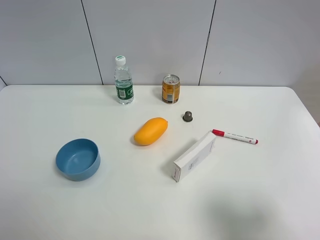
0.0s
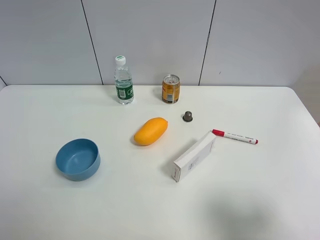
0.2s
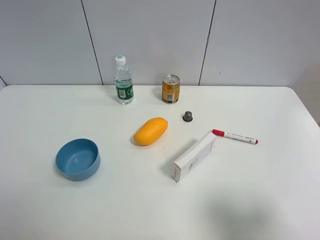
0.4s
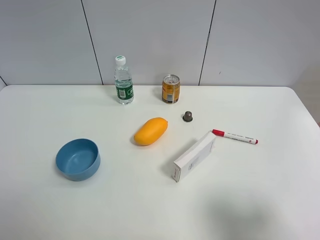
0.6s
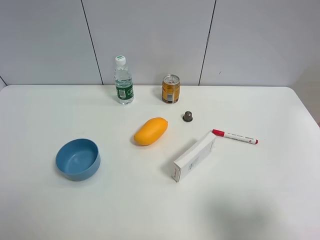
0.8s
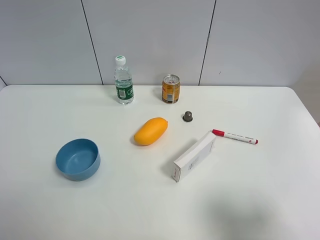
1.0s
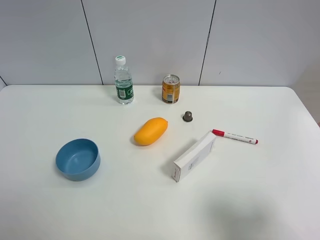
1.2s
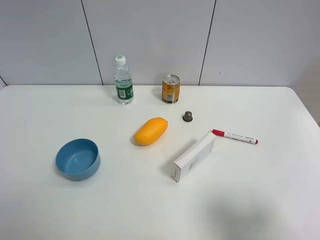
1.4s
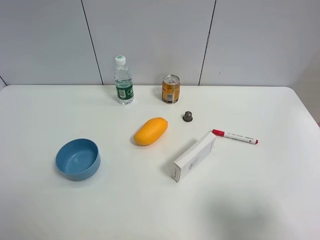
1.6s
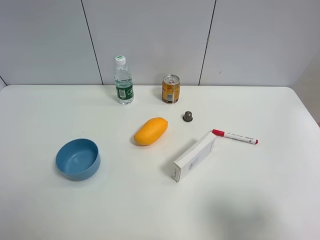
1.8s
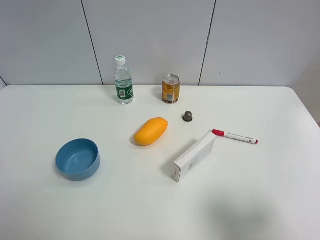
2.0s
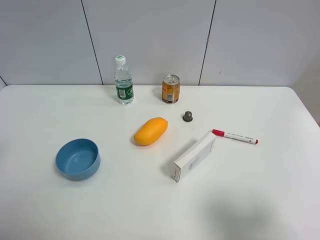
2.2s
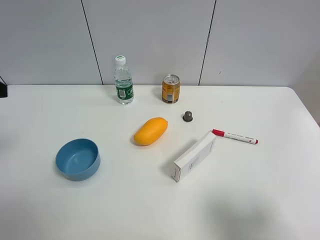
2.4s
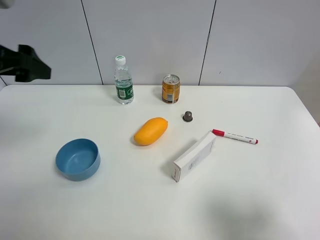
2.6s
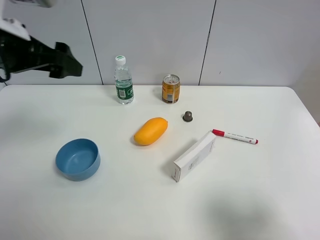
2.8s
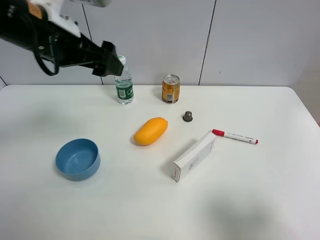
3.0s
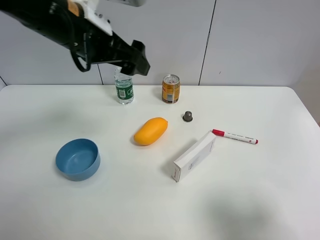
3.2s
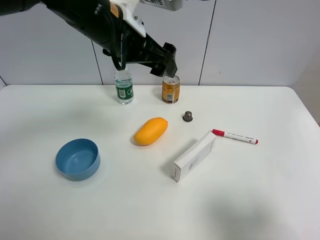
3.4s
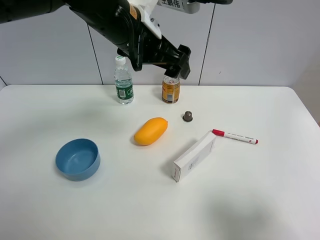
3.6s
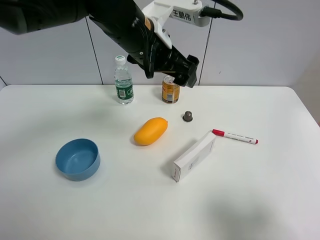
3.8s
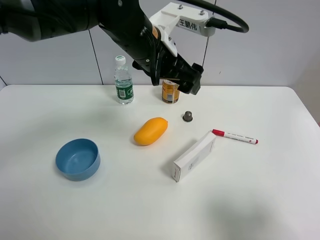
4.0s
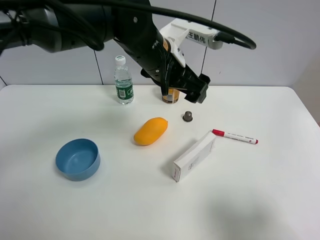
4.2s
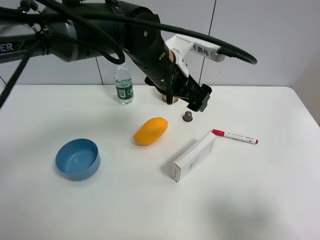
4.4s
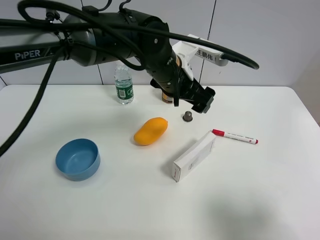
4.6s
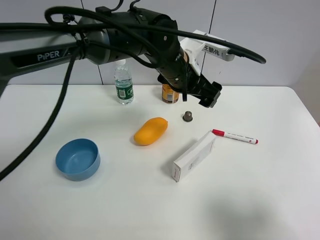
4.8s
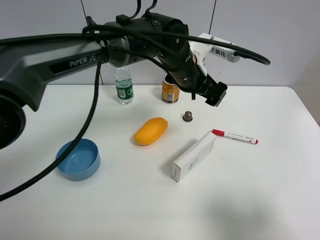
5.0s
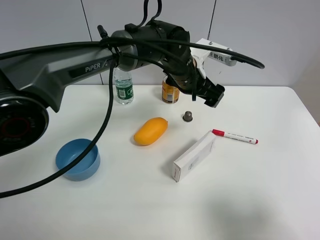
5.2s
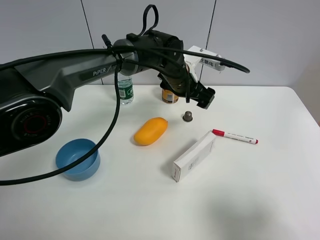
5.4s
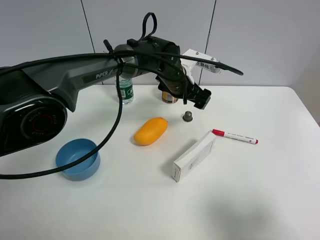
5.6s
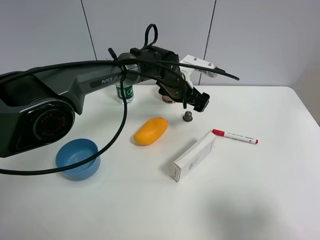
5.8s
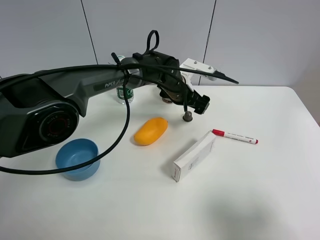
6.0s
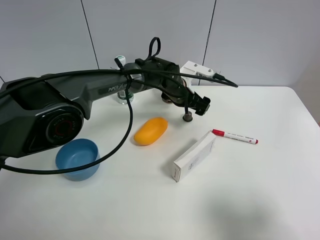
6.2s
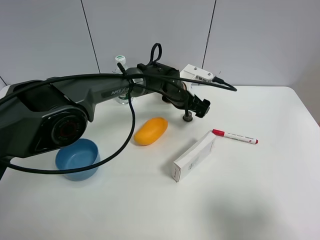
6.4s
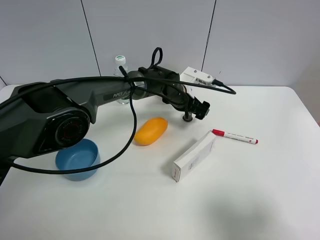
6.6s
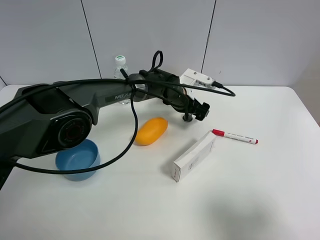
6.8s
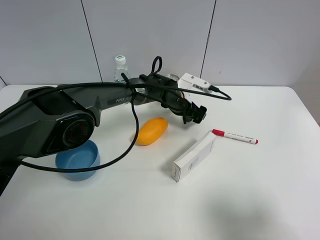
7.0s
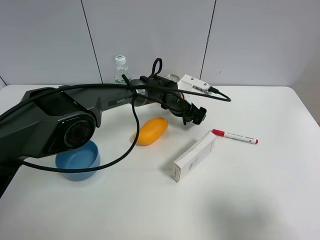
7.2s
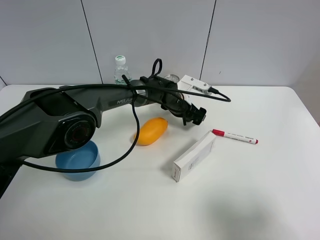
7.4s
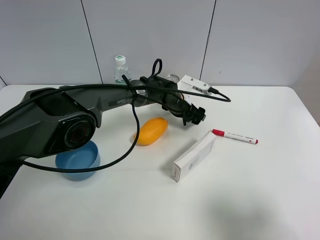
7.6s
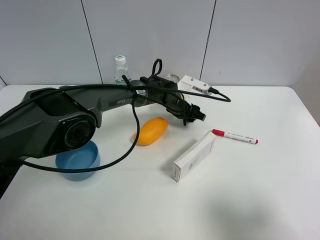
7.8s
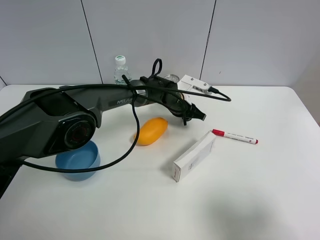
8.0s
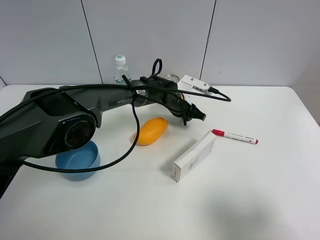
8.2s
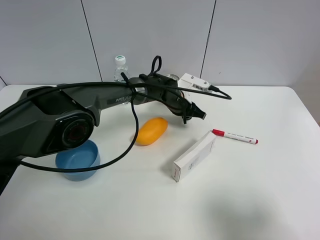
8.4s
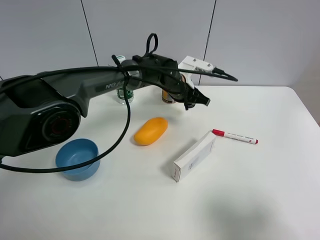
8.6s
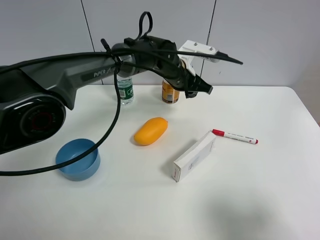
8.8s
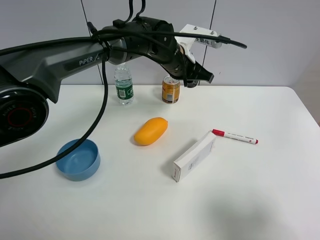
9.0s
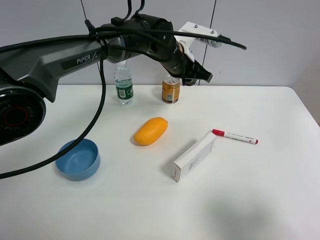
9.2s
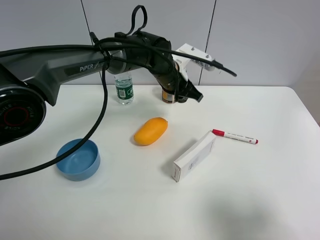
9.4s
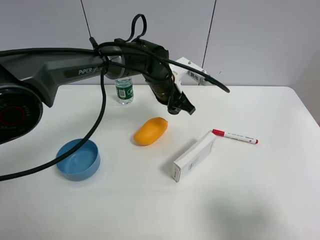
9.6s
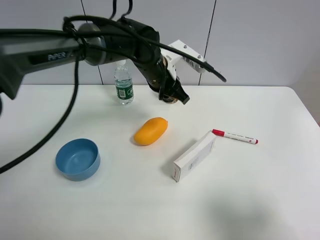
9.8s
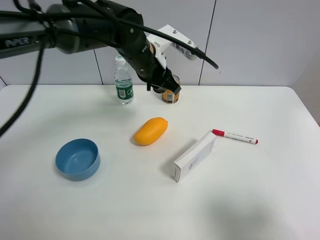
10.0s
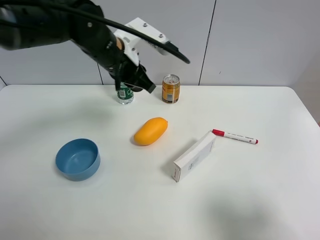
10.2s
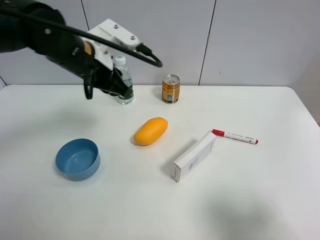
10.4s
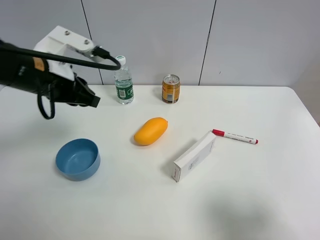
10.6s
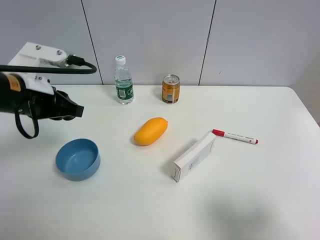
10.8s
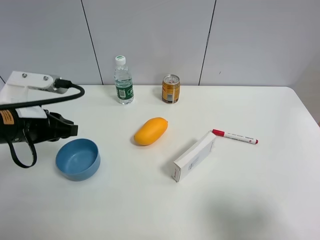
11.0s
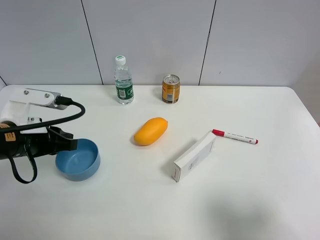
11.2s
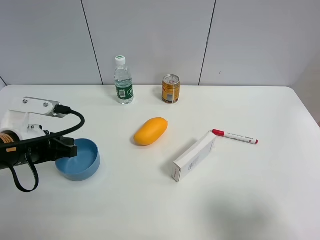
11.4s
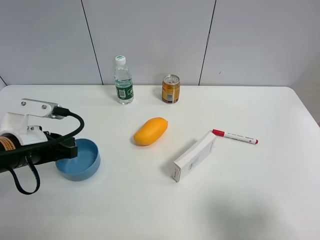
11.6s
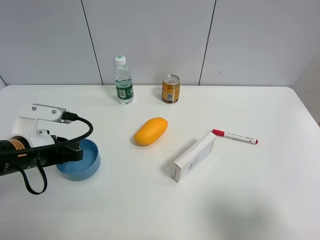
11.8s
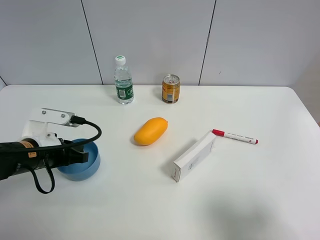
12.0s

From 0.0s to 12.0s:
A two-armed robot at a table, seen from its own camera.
Task of the whole recording: the gripper move the object.
Step, from 0.0s to 8.0s: Grasp the coffee capsule with the left gripper.
From 1.6s to 3.0s: The left gripper moves forward and to the right, about 30 cm.
From 3.0s to 4.4s: The left gripper heads to the right and downward, covering approximately 20 cm.
From 4.4s to 6.0s: The left gripper is displaced downward and forward by some 15 cm.
From 6.0s to 7.6s: The left gripper goes approximately 5 cm downward.
From 7.6s to 9.0s: The left gripper goes roughly 15 cm upward, and closes up.
From 9.0s to 10.4s: The left gripper goes approximately 20 cm to the left and backward.
From 10.4s to 12.0s: The left gripper shifts roughly 20 cm downward, backward and to the left.

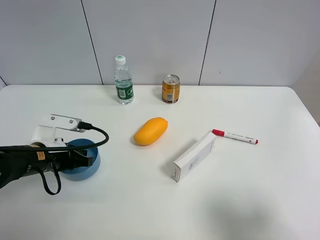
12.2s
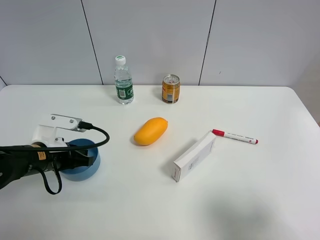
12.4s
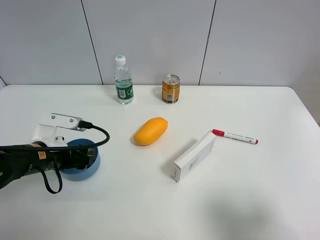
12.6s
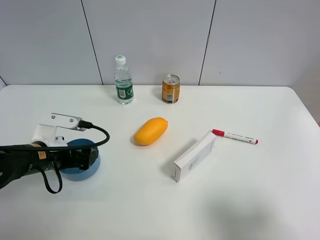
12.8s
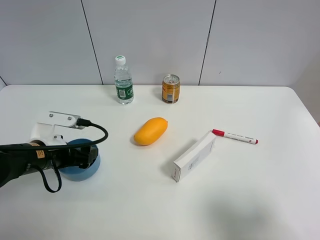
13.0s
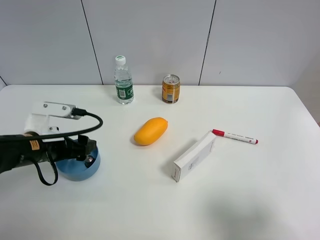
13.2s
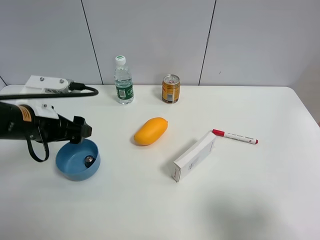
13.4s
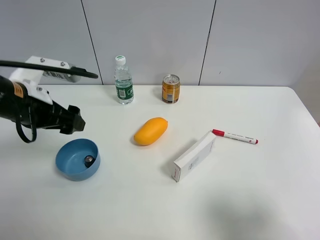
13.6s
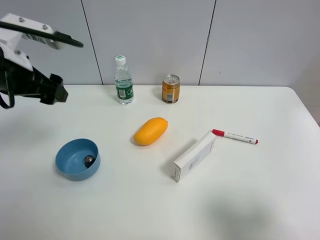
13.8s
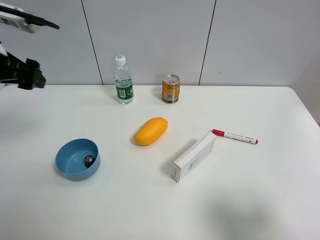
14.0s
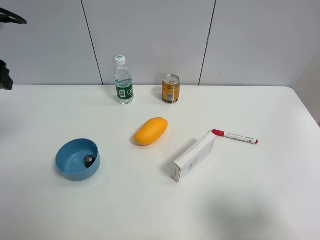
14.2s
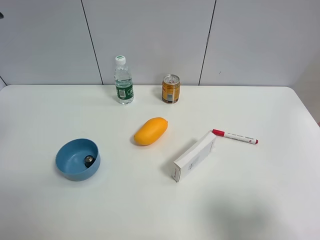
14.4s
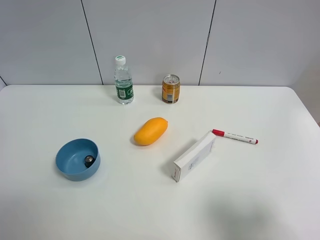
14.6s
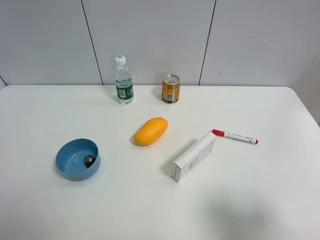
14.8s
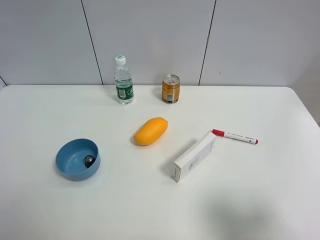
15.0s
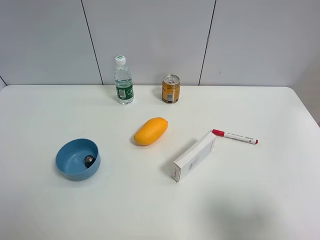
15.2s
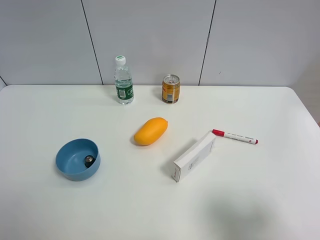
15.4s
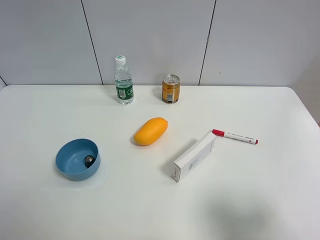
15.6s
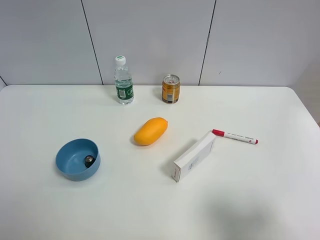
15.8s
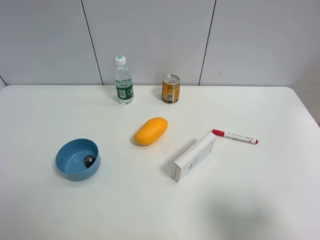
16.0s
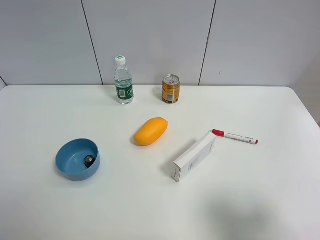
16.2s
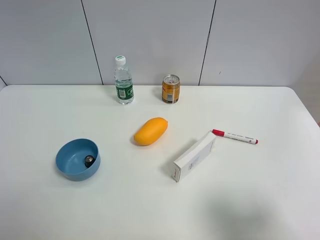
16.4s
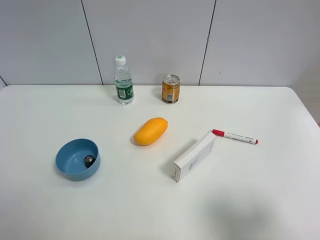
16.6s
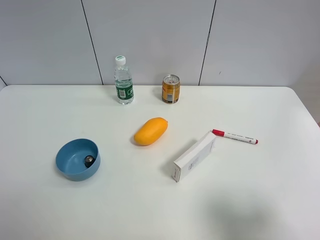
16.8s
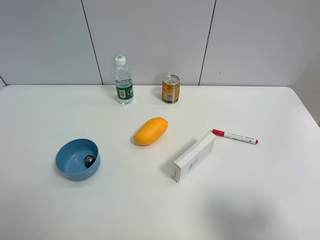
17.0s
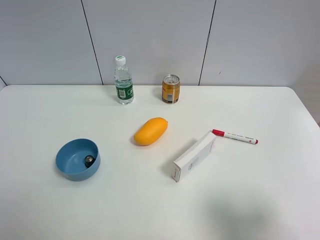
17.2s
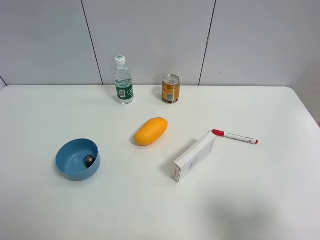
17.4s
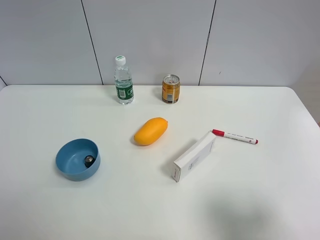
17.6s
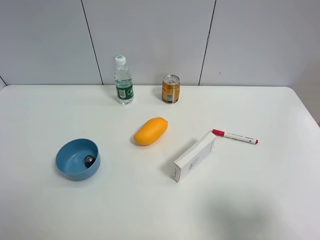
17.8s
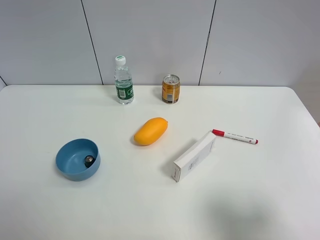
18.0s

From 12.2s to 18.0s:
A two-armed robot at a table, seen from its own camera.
Task of the whole recording: the gripper move the object.
From 12.2s to 13.6s: The left gripper heads upward, covering roughly 15 cm, and opens up.
From 13.6s to 15.0s: The left gripper shifts approximately 20 cm backward, upward and to the left.
From 16.6s to 18.0s: Both grippers stay put.

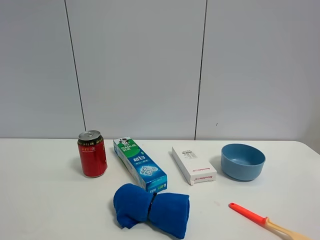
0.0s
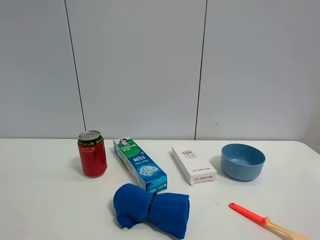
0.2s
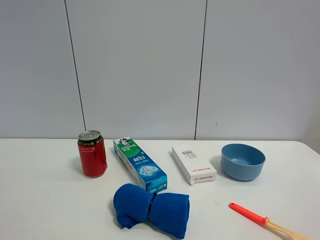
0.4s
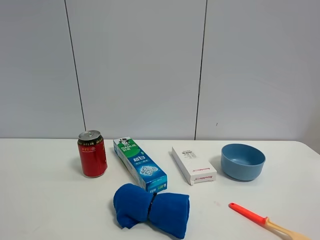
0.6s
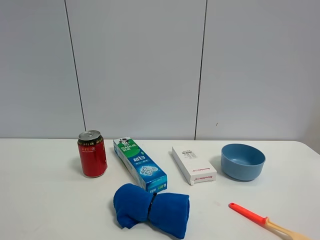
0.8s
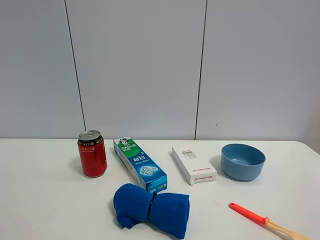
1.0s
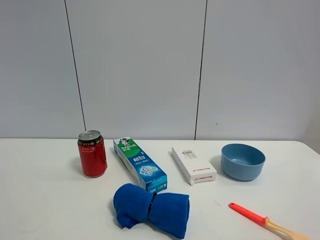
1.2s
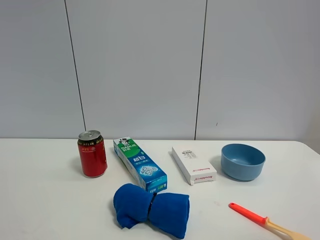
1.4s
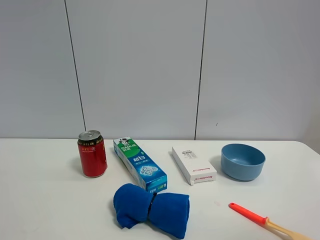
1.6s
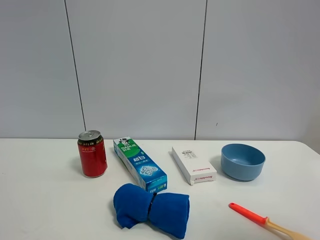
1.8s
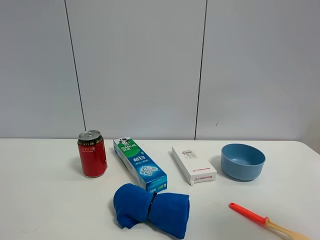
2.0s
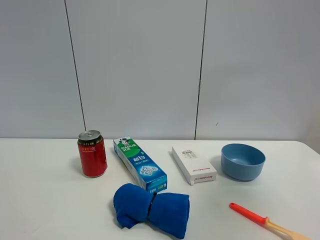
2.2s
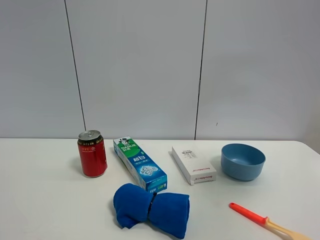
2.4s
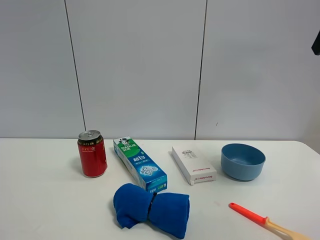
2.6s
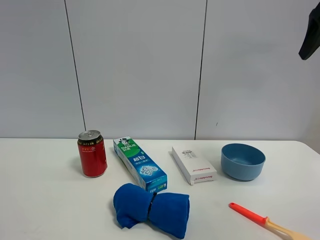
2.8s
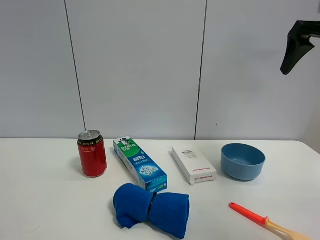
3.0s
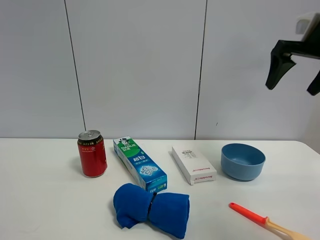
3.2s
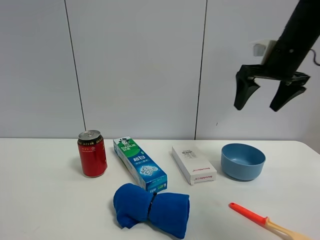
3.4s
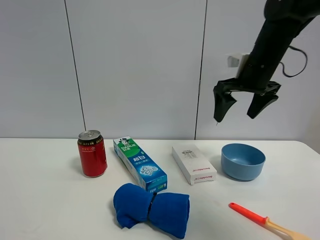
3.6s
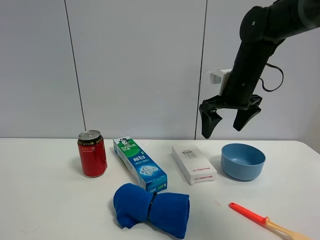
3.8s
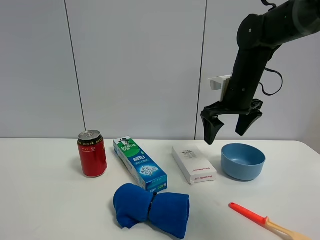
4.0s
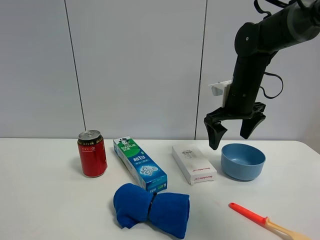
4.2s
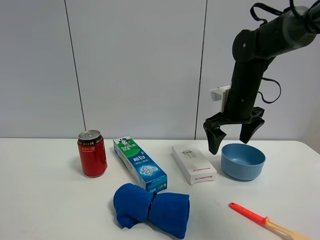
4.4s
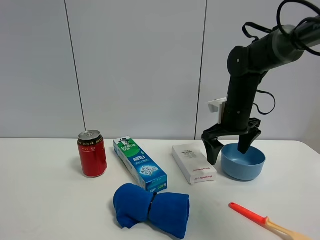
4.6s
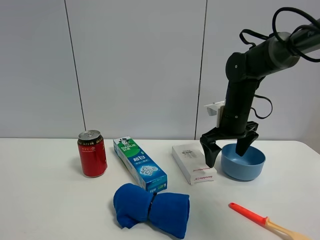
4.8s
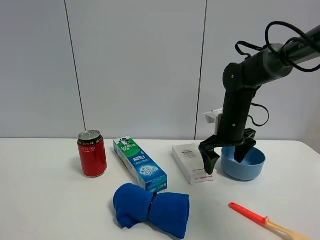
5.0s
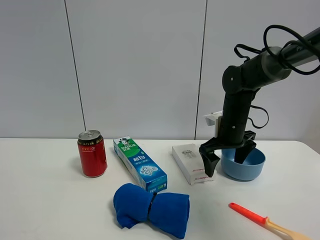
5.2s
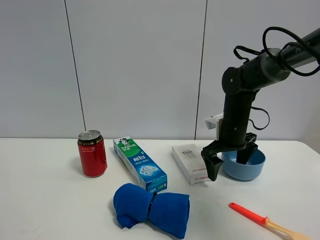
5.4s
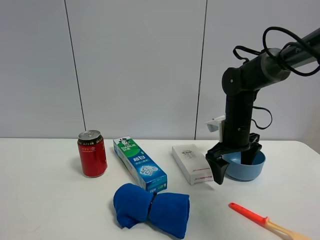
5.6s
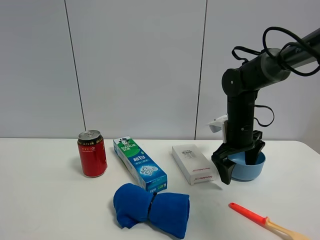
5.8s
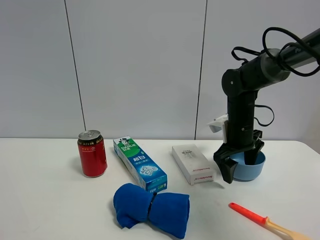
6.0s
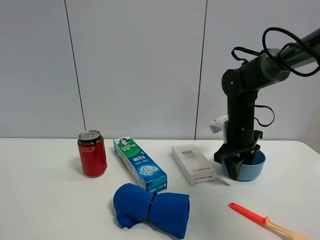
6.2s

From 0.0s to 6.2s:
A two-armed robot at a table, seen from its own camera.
Task of the whole recording: the gripper move the object.
From 1.6s to 3.2s: The right gripper travels forward by approximately 35 cm.
From 3.2s to 4.6s: The right gripper shifts roughly 20 cm downward and to the left.
From 4.6s to 6.2s: The right gripper closes up.
